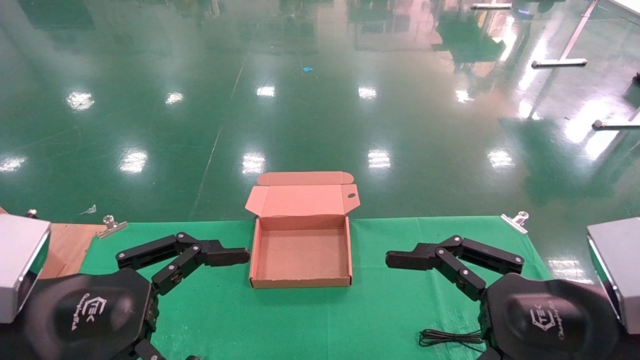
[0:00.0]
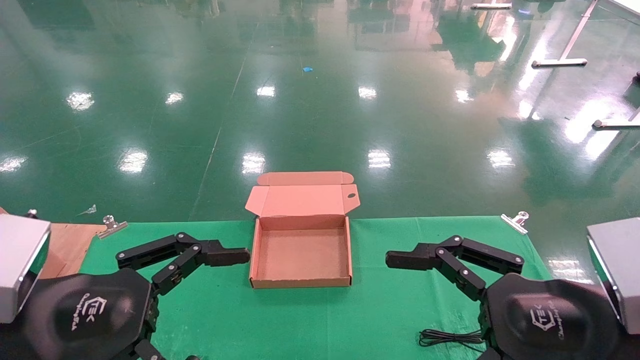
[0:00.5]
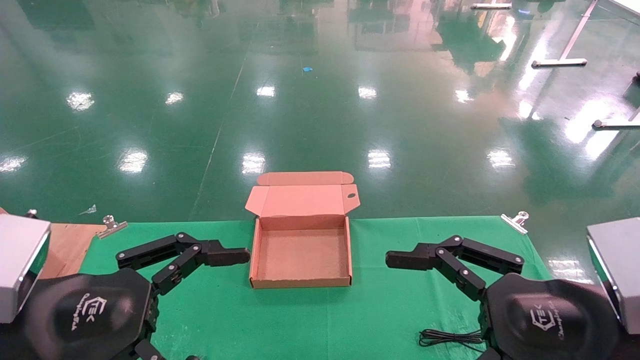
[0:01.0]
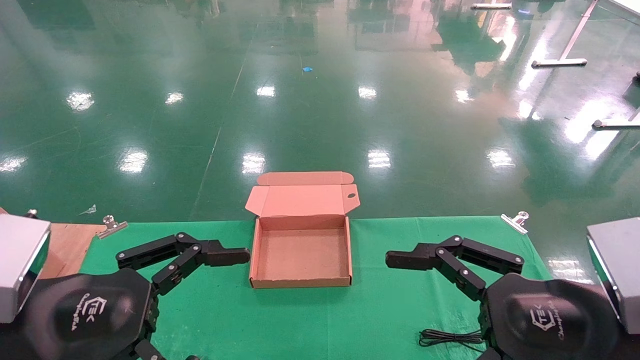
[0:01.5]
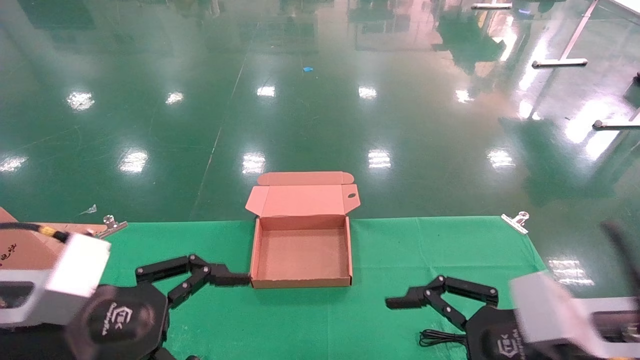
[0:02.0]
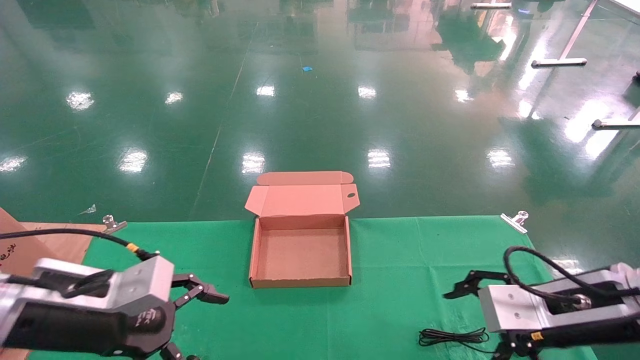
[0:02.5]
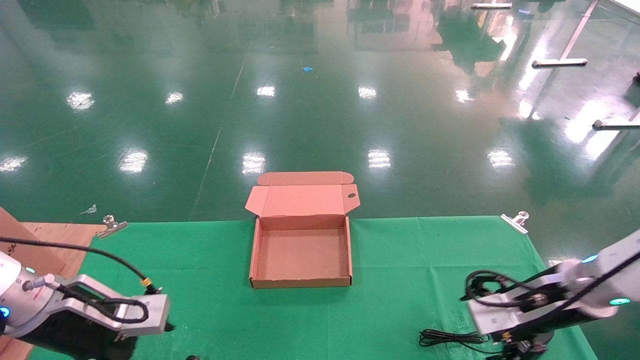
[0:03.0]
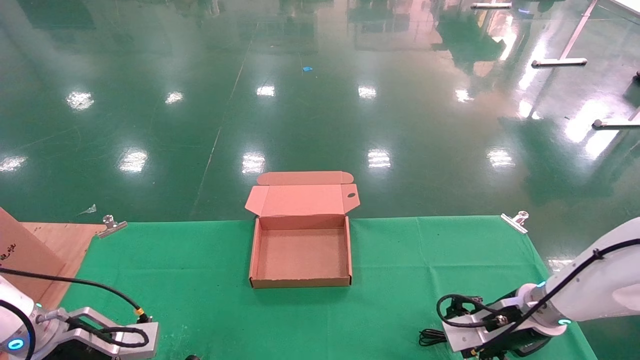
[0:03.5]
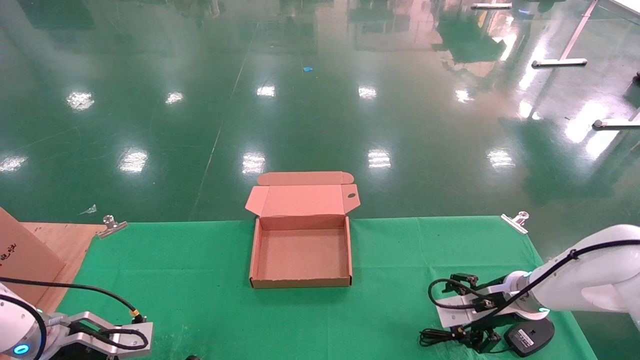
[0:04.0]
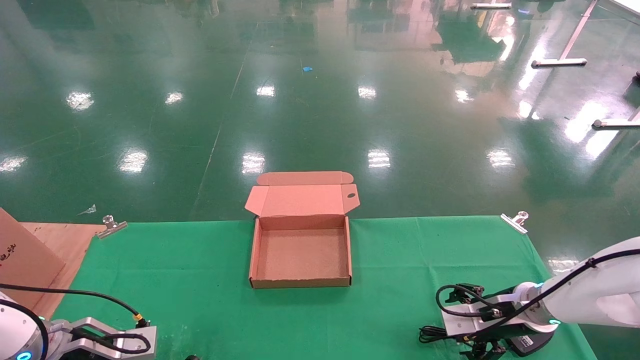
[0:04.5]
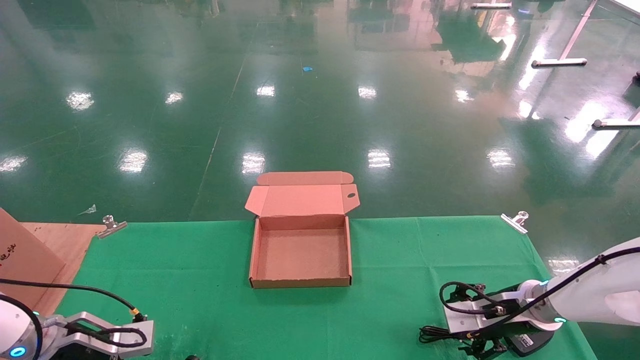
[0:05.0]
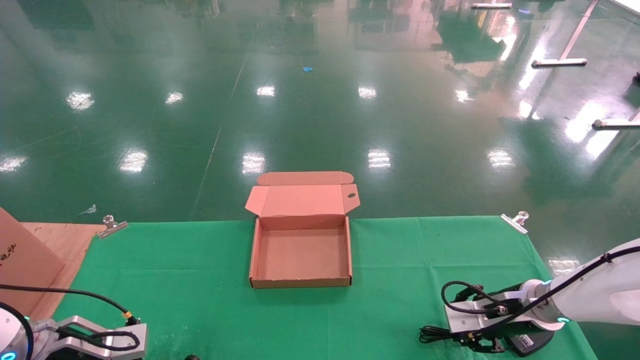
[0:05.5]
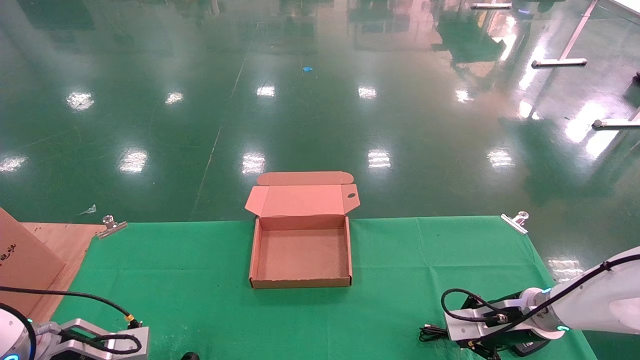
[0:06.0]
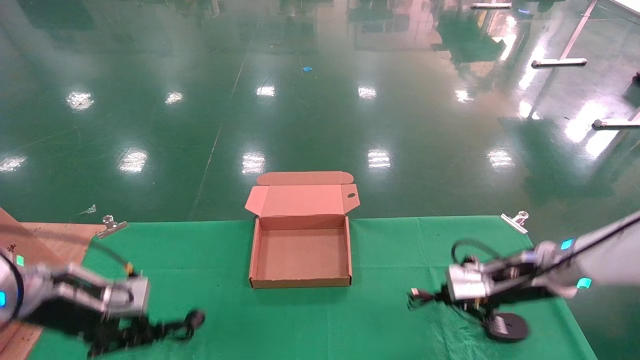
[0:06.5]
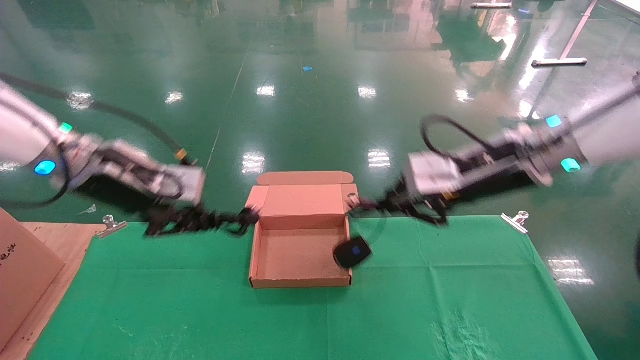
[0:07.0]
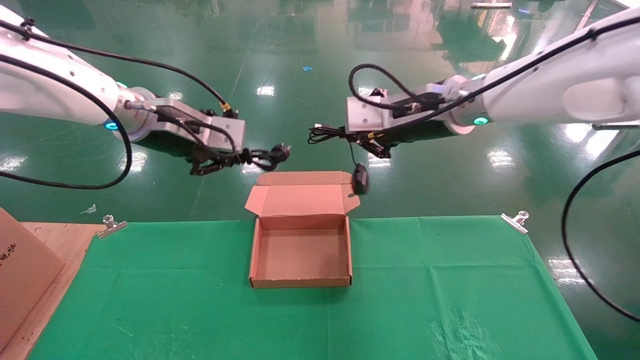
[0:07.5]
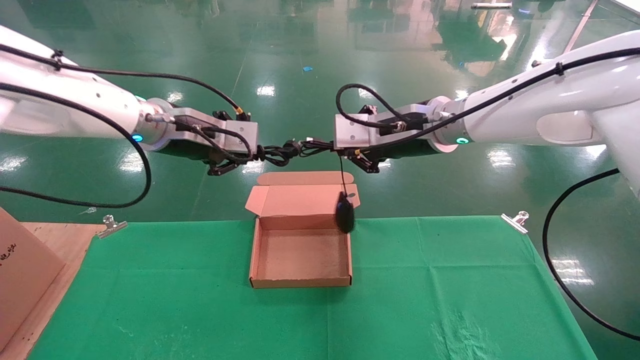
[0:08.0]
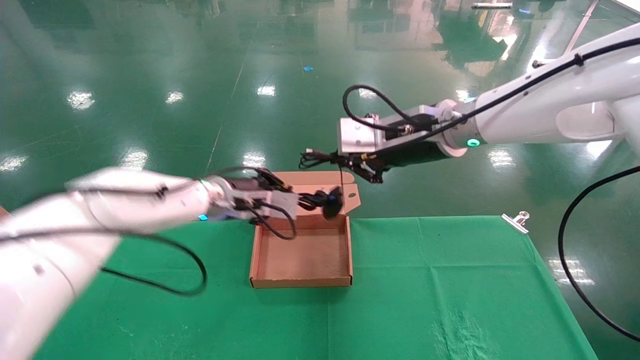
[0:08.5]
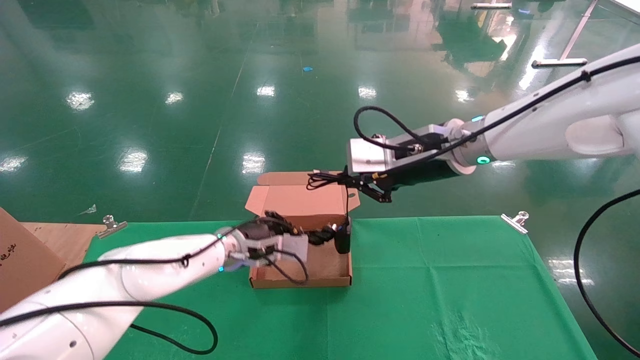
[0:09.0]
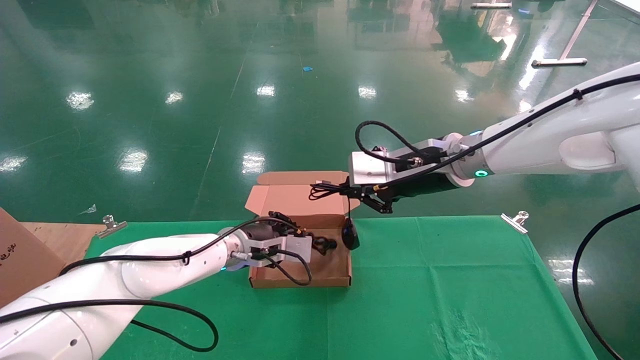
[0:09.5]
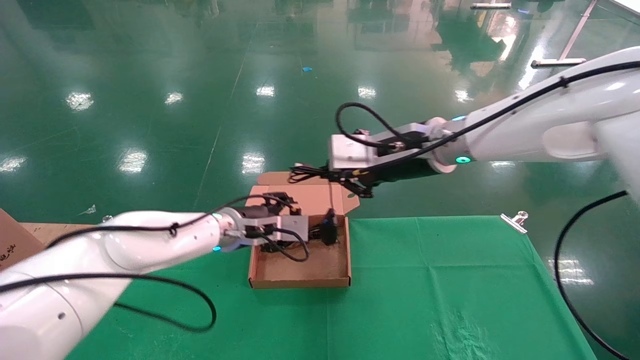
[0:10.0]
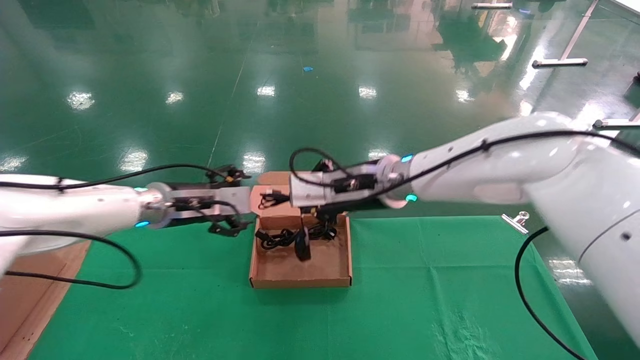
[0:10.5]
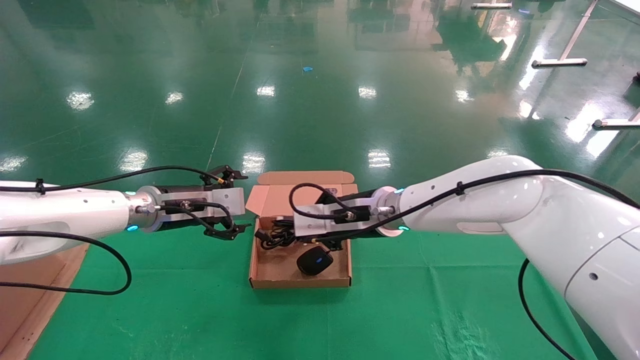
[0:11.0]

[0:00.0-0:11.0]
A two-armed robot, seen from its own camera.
Step, 0:02.5 to 0:06.5: Grab and lift both the mouse and power cord from the accessory packaging area at the same time.
0:00.0 to 0:02.0: The grippers stay close to where they were, moving slightly.
0:02.0 to 0:03.5: The left gripper is displaced forward, downward and to the left by some 20 cm. The right gripper goes about 20 cm forward and downward.
0:03.5 to 0:05.5: The left gripper closes its fingers; the right gripper closes its fingers.
0:05.5 to 0:07.5: The right gripper shifts about 35 cm upward and to the left, and closes, while the left gripper heads upward and to the right, covering some 35 cm, and closes its fingers.
0:07.5 to 0:09.0: The left gripper shifts roughly 25 cm downward and to the right.
0:09.0 to 0:11.0: The right gripper heads downward and to the left, covering some 15 cm. The left gripper shifts some 15 cm to the left and upward, and opens.

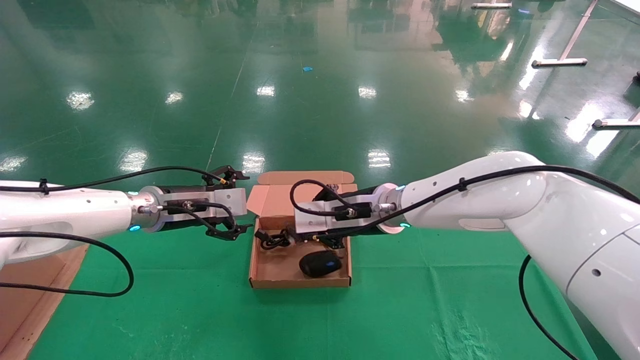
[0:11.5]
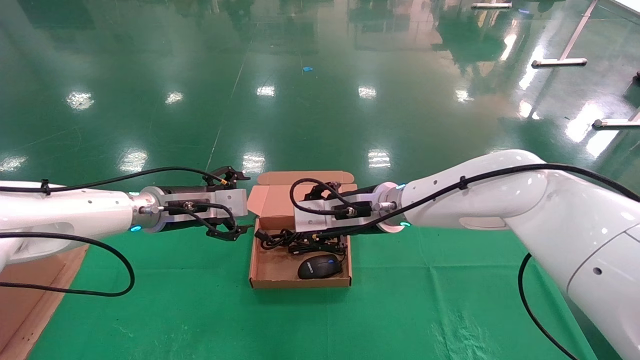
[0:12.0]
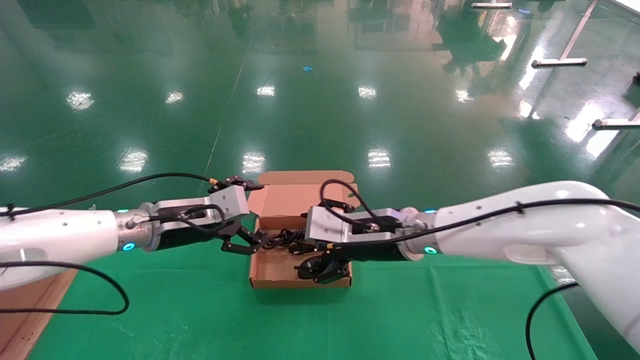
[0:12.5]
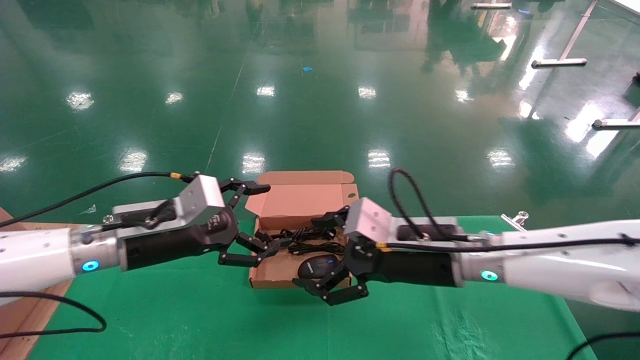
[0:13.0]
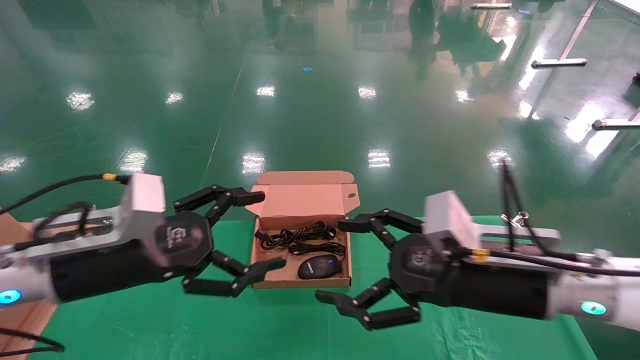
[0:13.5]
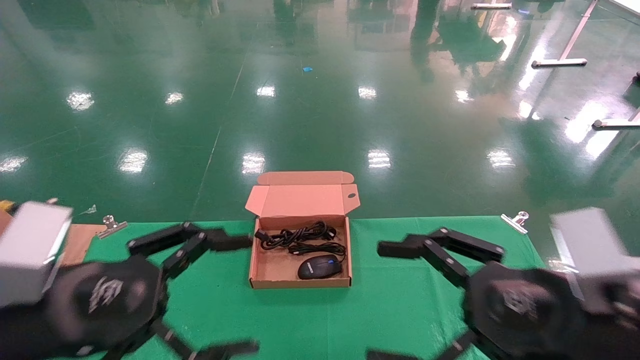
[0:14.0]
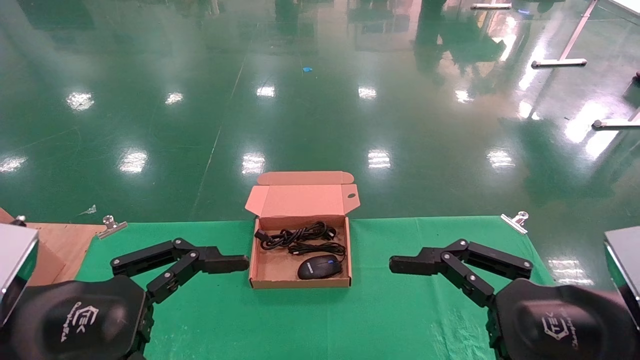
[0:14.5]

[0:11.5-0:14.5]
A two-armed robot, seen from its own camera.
0:11.5 to 0:13.0: The left gripper shifts approximately 10 cm backward. The right gripper travels backward and to the right by roughly 10 cm, and opens.
0:13.0 to 0:14.5: The left gripper shifts about 20 cm backward. Meanwhile the right gripper travels backward and to the right by approximately 20 cm.

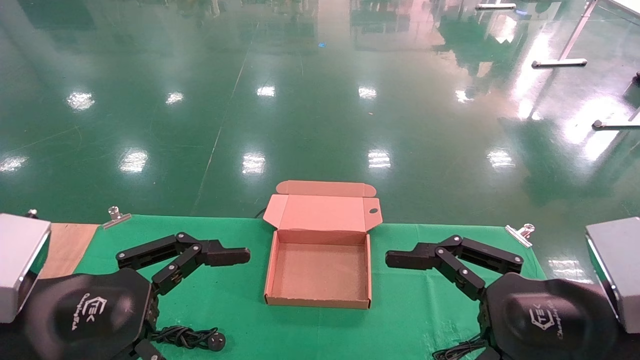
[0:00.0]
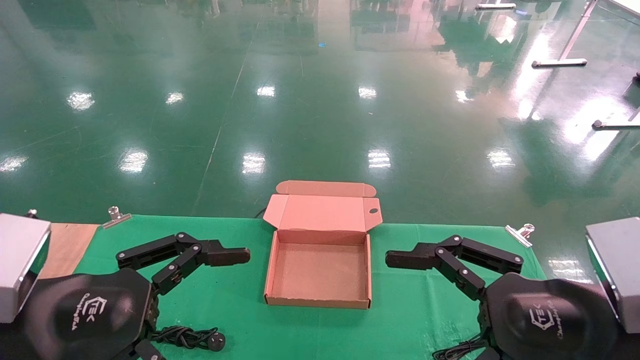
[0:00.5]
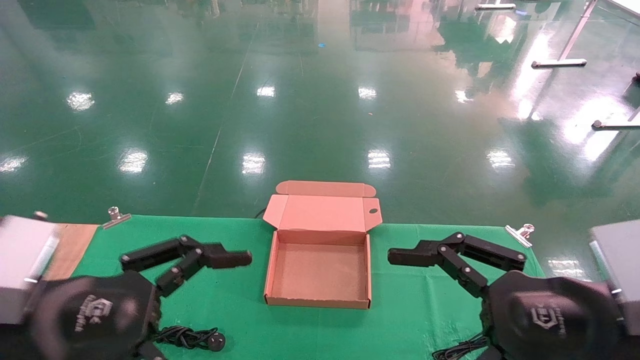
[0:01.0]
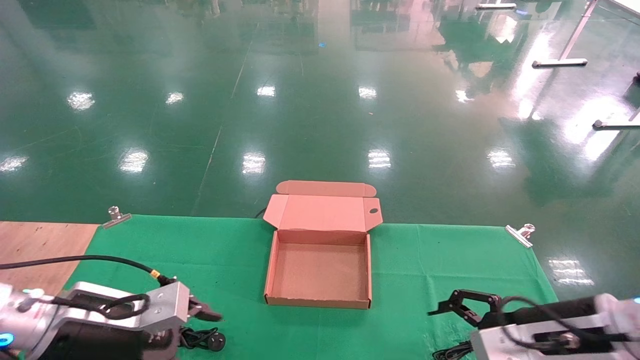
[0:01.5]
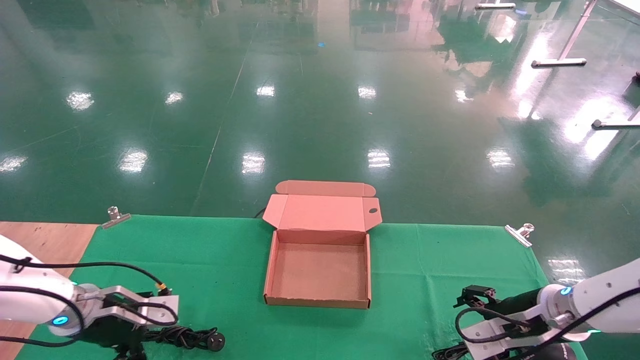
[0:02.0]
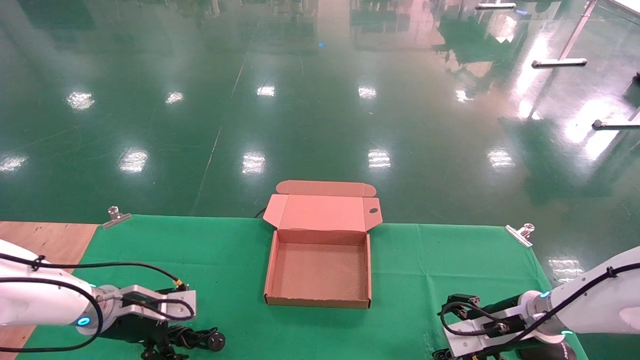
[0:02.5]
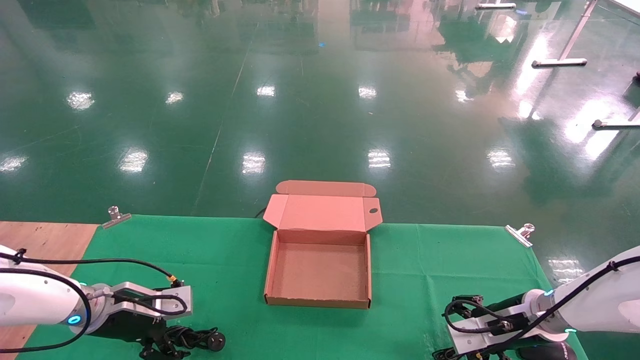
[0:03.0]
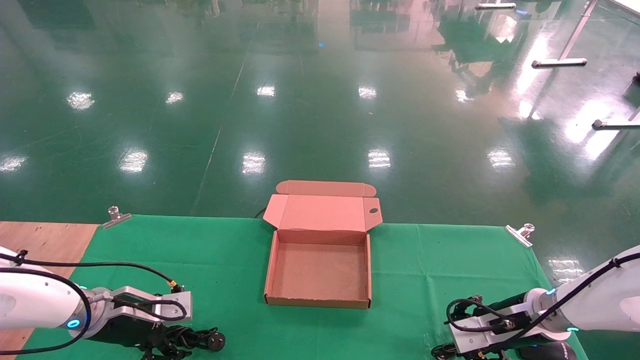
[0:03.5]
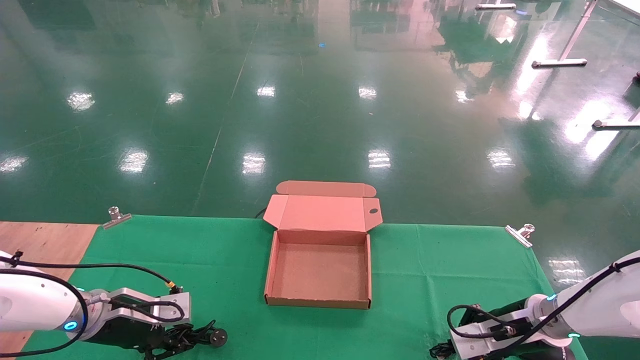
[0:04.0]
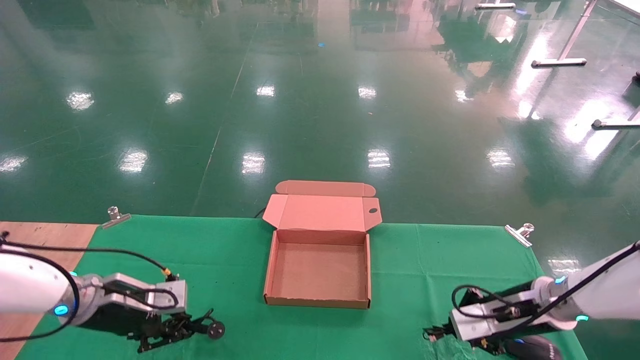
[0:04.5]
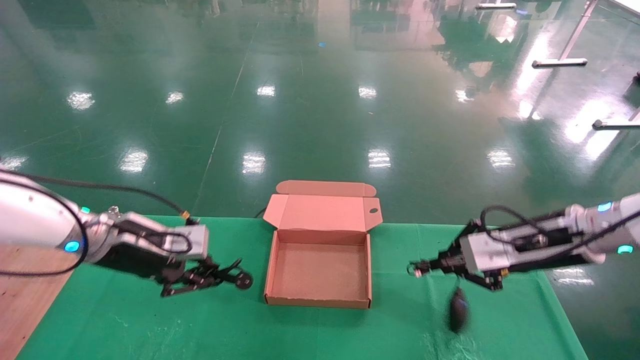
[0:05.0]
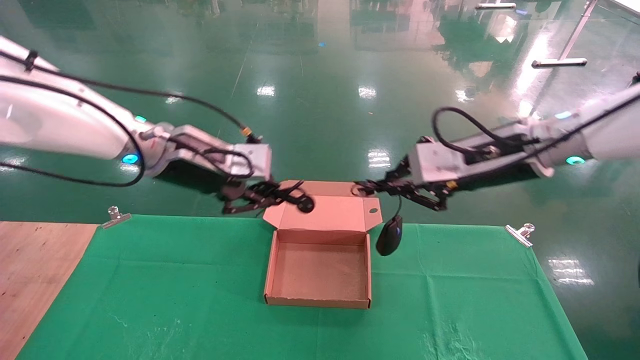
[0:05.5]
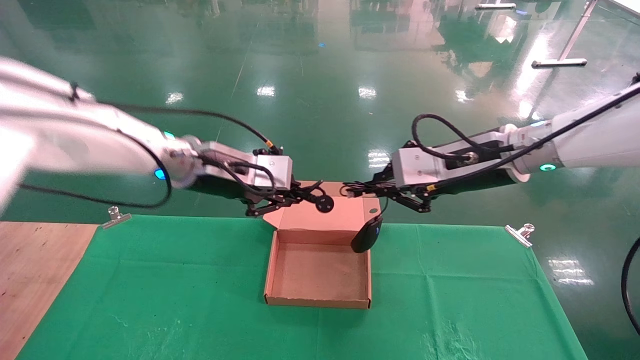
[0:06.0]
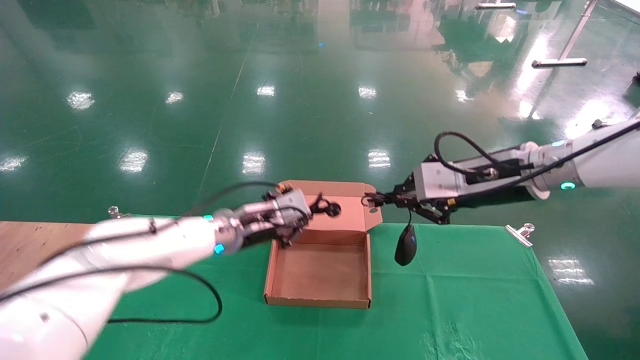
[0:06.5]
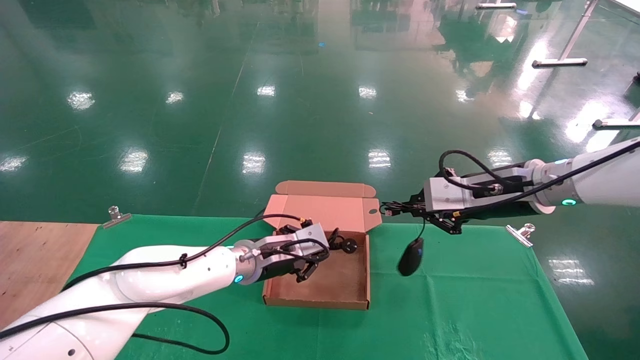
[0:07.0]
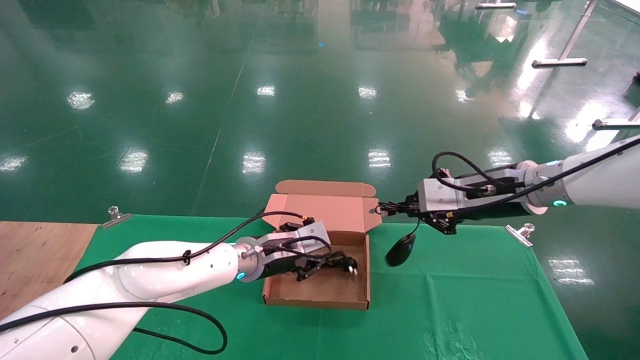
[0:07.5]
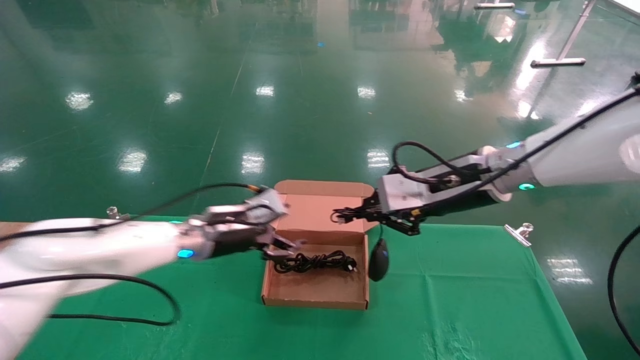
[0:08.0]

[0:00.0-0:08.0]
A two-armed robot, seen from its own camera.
Step, 0:01.5 to 0:05.0: Grab and lift both the mouse and power cord from the accessory packaging area at the same time.
0:00.0 to 0:02.0: Both grippers travel together forward and downward, approximately 25 cm.
0:02.0 to 0:04.0: The right gripper closes. The left gripper closes its fingers.
0:04.0 to 0:06.0: The right gripper goes about 25 cm upward. The left gripper moves upward and to the right, approximately 30 cm.
0:06.0 to 0:08.0: The left gripper moves downward, about 15 cm, and opens.
